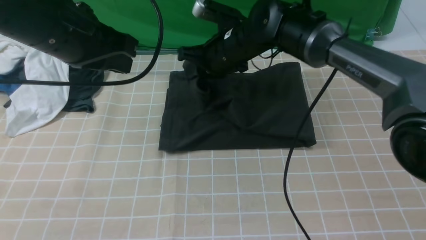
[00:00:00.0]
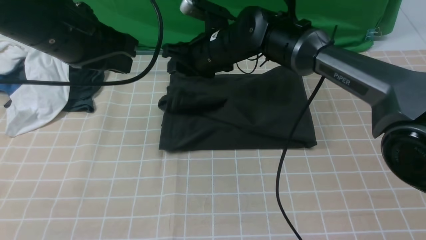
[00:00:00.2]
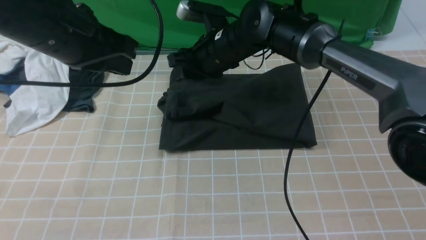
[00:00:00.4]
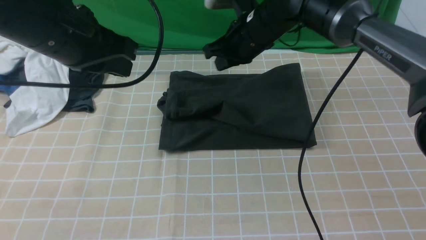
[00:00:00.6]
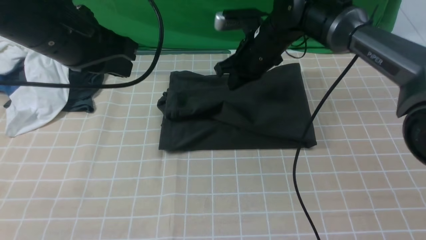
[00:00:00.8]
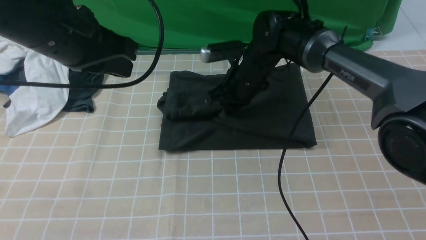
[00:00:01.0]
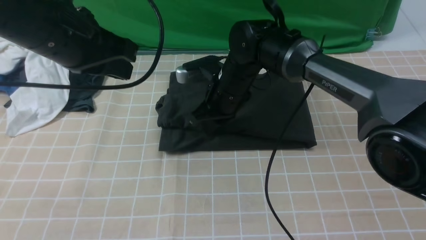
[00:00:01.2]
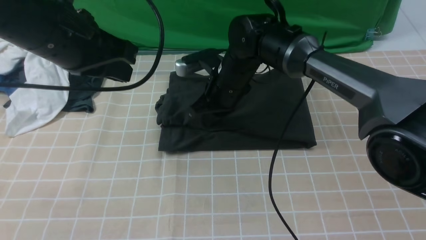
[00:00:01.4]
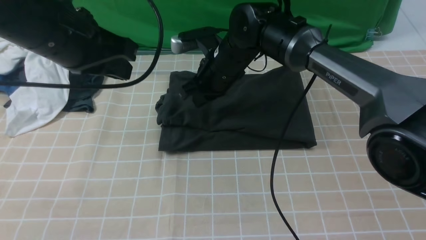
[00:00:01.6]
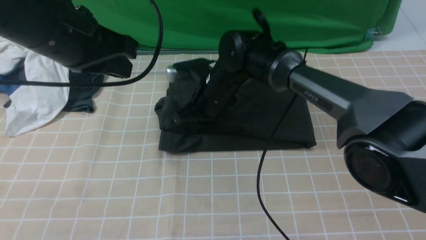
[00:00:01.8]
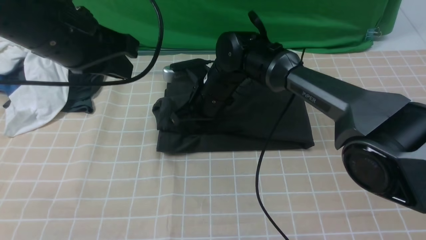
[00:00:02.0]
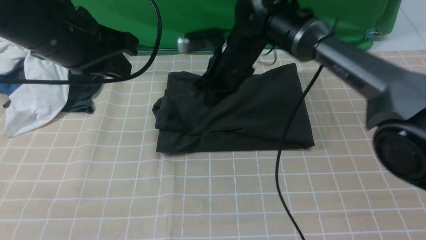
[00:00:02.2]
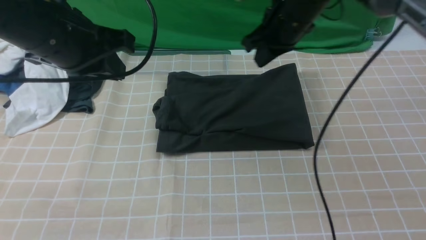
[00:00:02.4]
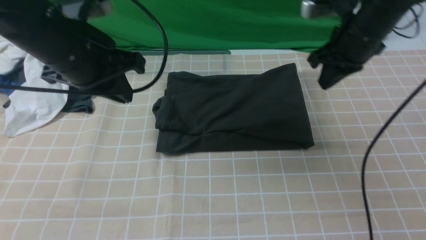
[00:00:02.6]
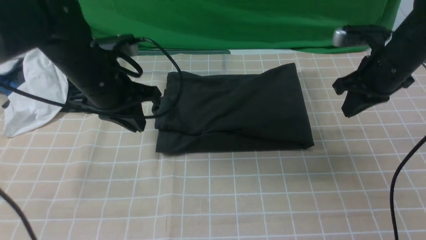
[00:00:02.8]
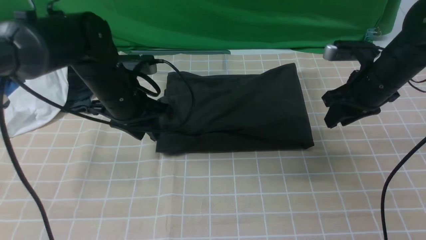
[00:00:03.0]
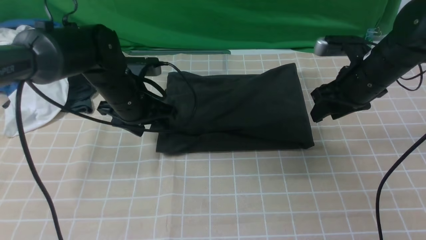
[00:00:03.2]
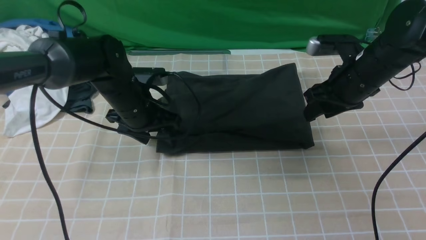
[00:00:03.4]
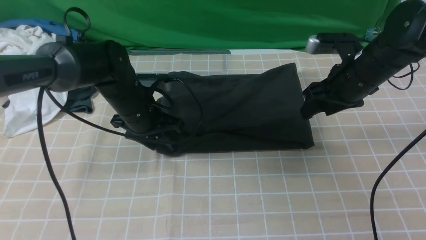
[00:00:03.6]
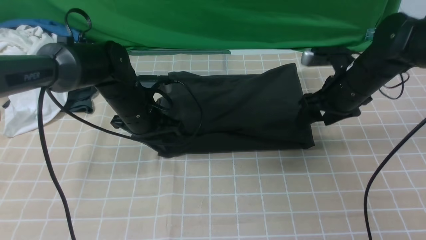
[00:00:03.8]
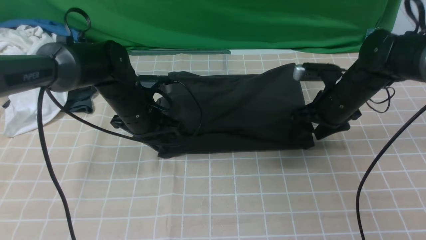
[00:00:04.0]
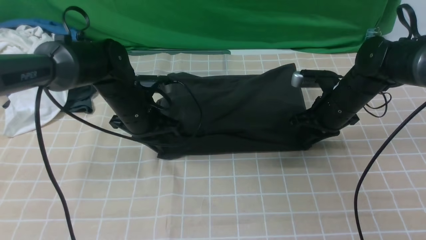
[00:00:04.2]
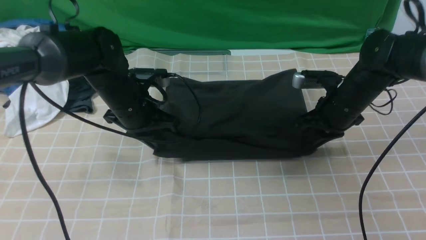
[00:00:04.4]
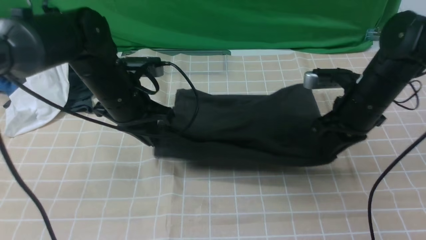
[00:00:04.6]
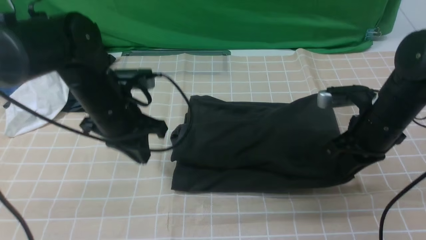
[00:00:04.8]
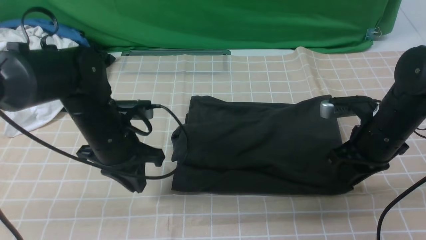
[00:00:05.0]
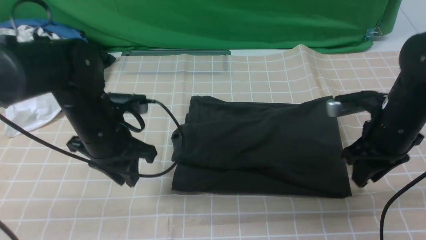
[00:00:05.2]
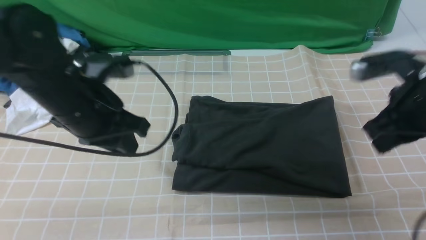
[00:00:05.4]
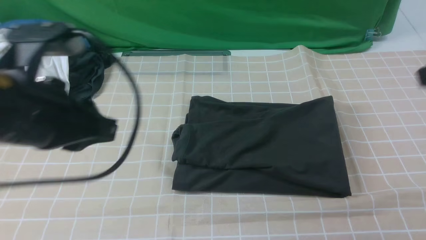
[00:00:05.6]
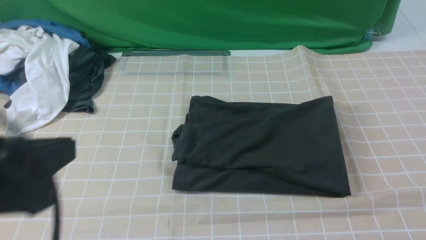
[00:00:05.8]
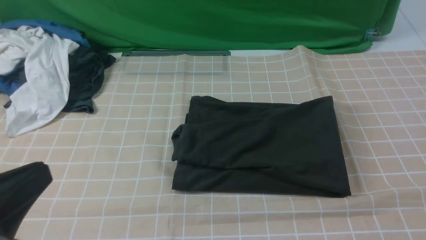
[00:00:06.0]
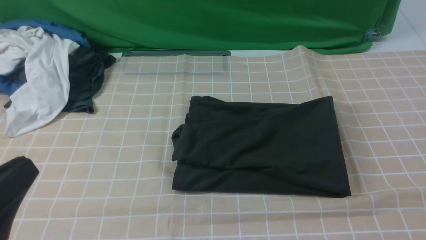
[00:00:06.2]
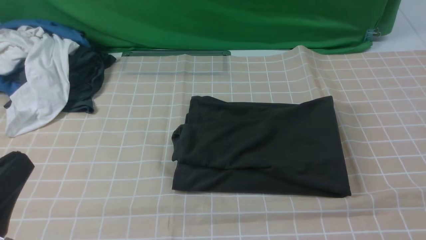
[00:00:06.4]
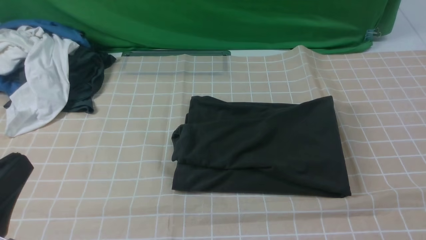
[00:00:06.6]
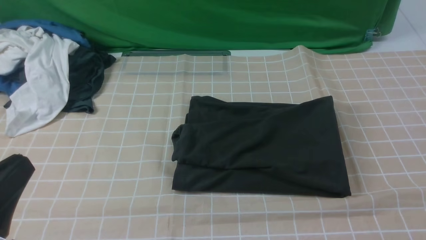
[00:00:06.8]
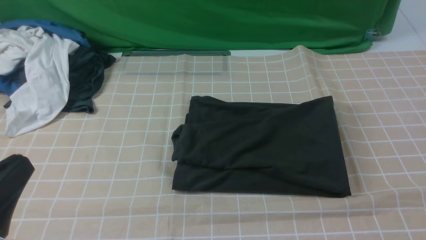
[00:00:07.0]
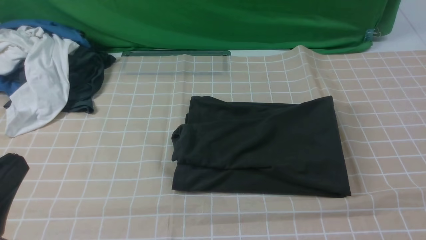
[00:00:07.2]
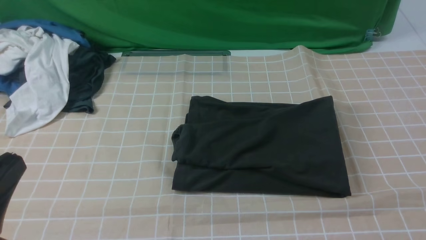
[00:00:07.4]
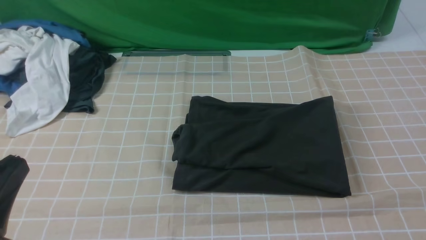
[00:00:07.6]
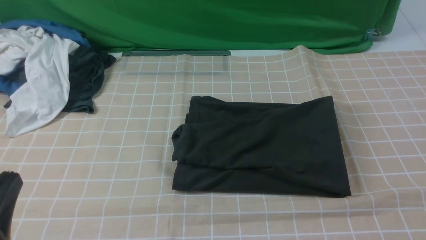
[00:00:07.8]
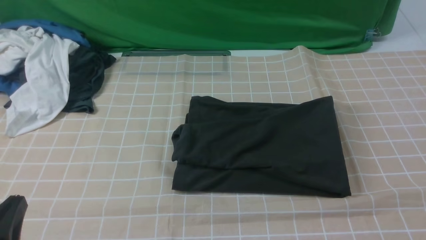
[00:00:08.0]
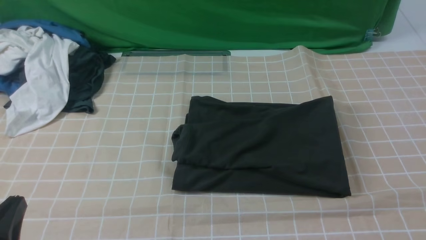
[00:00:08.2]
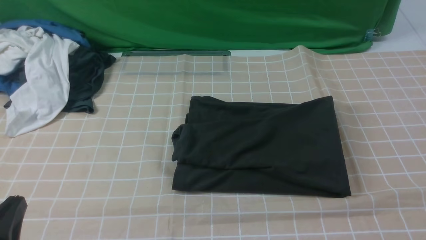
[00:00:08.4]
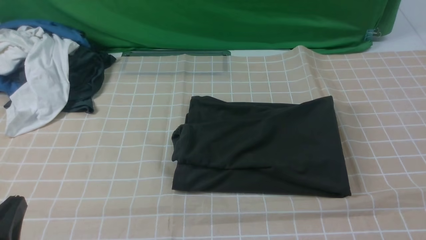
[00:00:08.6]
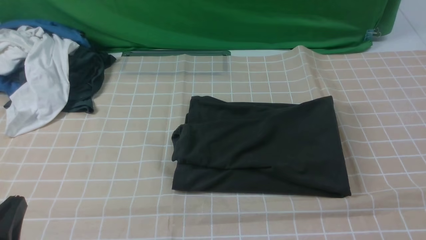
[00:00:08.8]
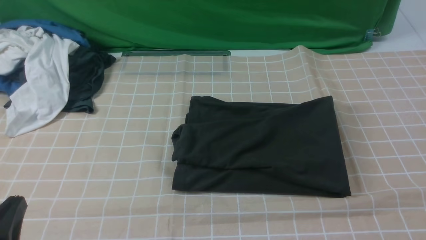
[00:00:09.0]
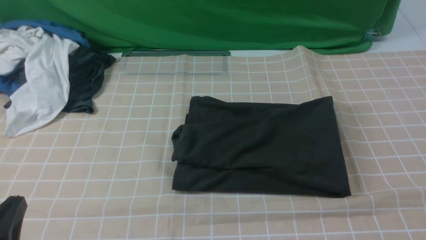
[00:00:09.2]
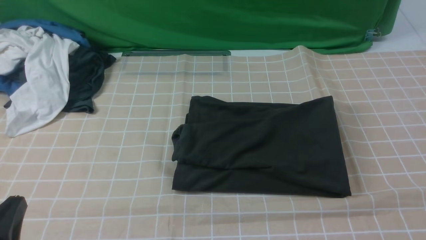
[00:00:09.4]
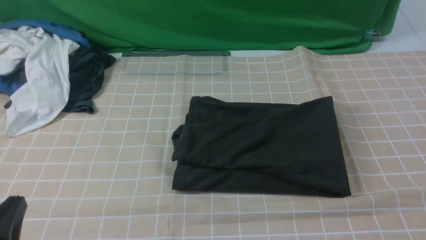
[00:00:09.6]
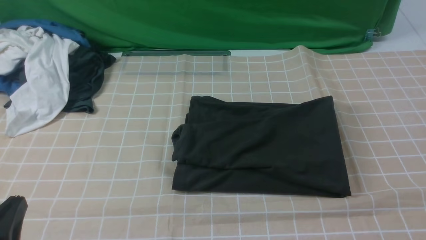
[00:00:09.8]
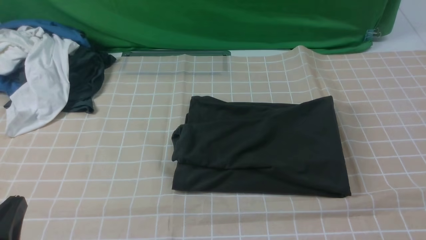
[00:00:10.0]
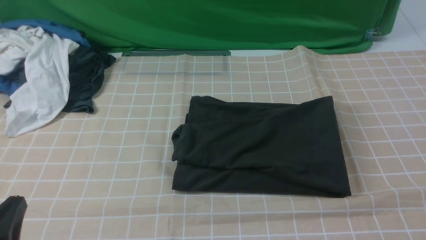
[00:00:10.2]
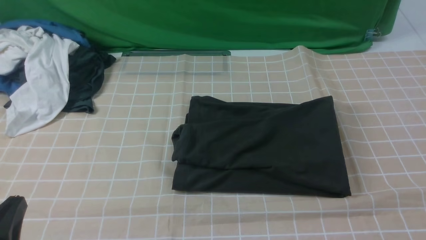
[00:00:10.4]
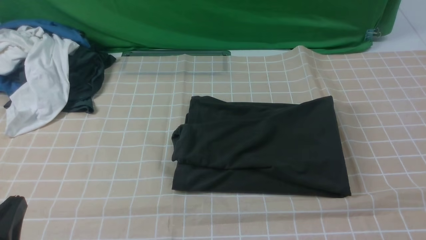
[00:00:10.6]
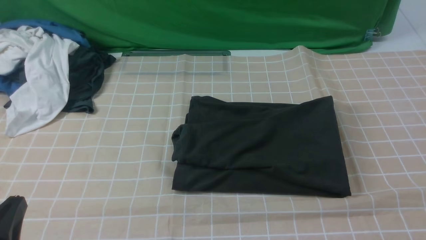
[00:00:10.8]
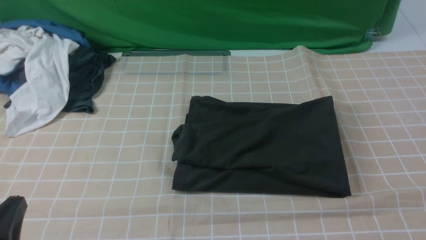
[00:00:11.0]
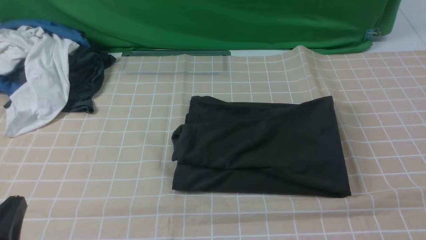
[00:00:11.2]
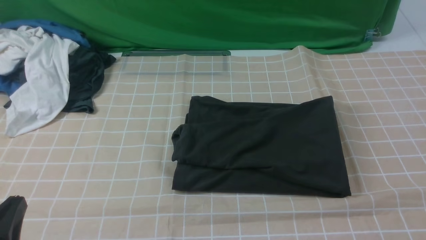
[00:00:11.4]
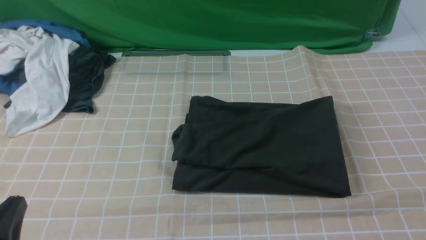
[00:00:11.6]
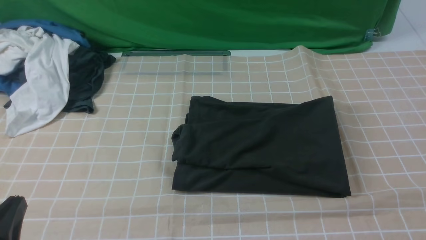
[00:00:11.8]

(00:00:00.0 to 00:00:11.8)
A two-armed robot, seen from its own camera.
00:00:00.0 - 00:00:01.4: The right gripper closes its fingers.
00:00:01.4 - 00:00:03.0: The right gripper travels to the right by some 25 cm, and opens up, while the left gripper travels downward and forward by roughly 15 cm, and opens its fingers.
00:00:03.0 - 00:00:04.4: The left gripper closes, while the right gripper moves some 5 cm, and closes up.
00:00:04.4 - 00:00:06.0: The right gripper is displaced backward and upward by about 40 cm; the left gripper heads backward, covering roughly 30 cm.
00:00:07.4 - 00:00:08.8: The left gripper moves downward, about 10 cm.
00:00:10.4 - 00:00:11.8: Neither gripper changes place.
